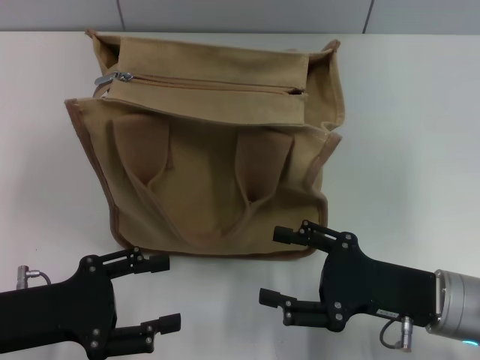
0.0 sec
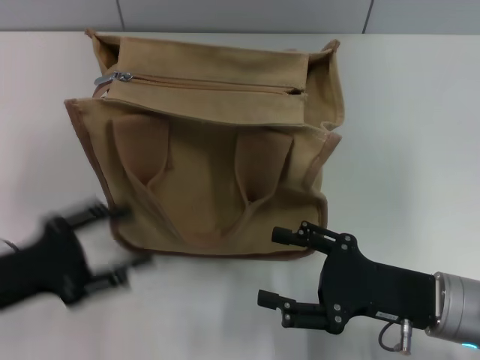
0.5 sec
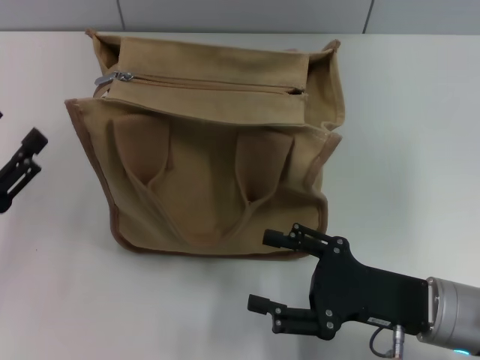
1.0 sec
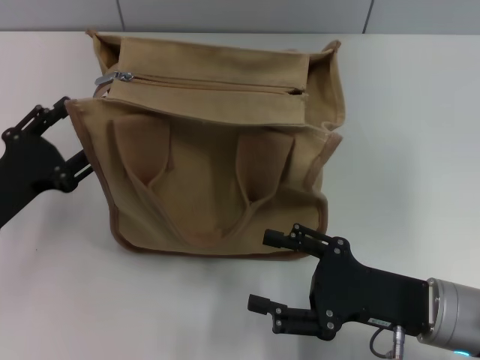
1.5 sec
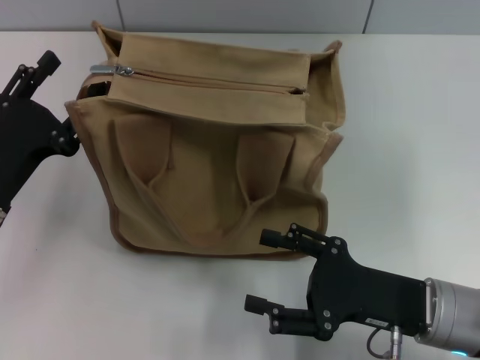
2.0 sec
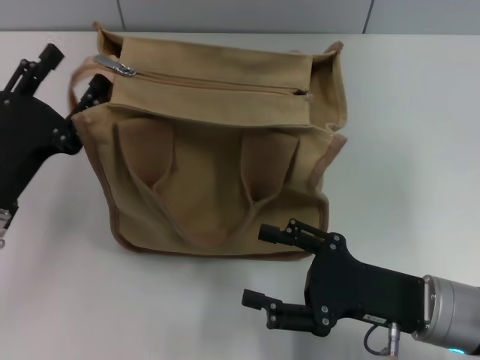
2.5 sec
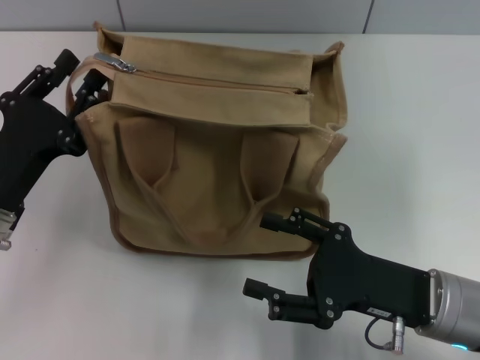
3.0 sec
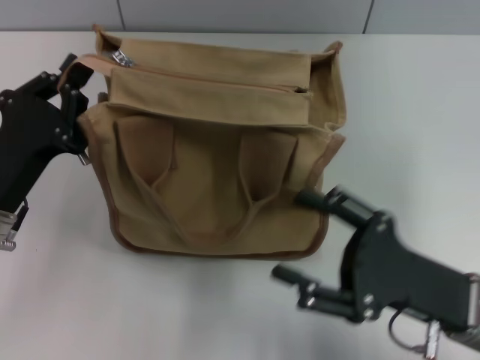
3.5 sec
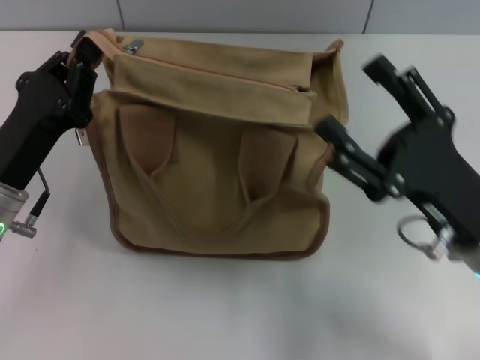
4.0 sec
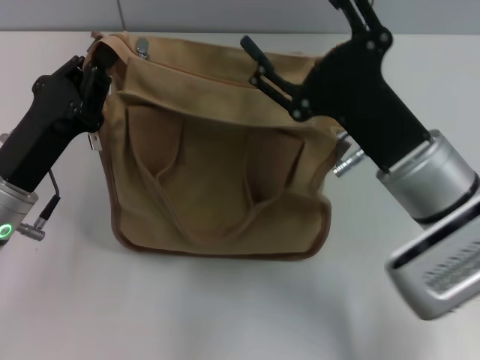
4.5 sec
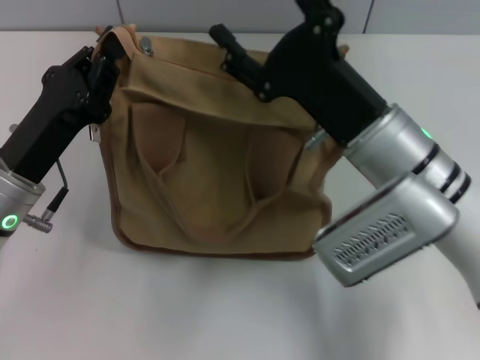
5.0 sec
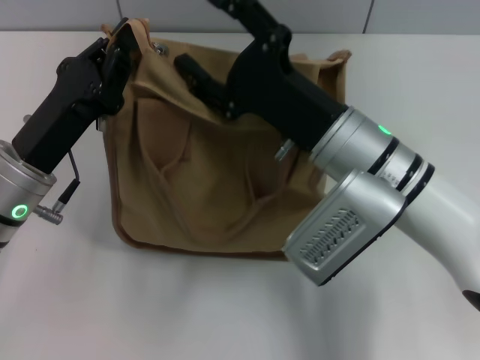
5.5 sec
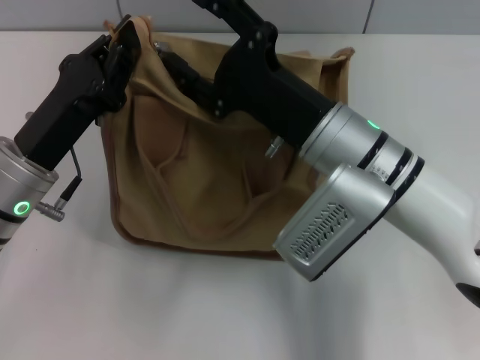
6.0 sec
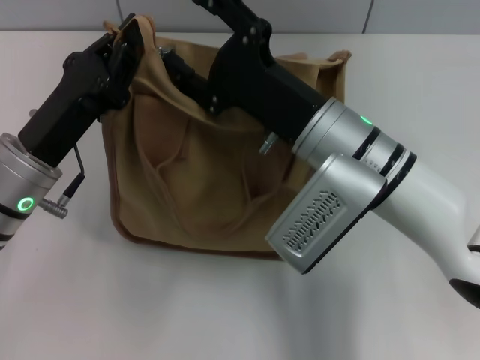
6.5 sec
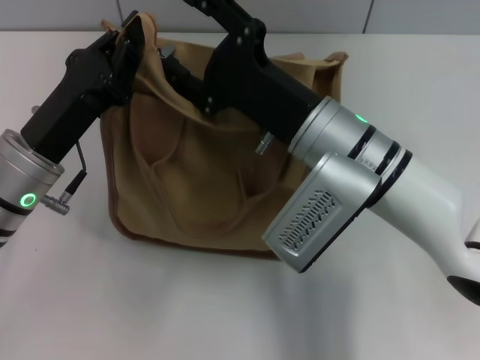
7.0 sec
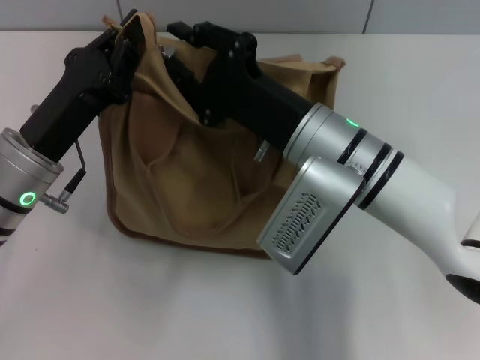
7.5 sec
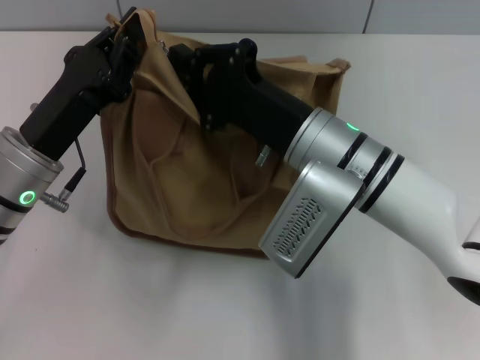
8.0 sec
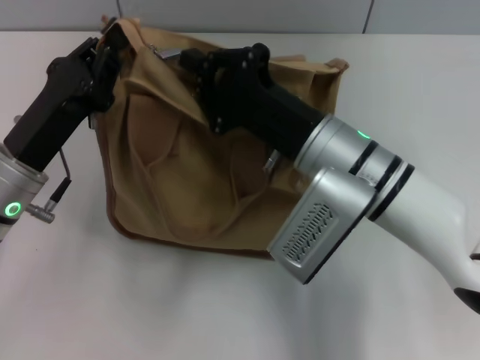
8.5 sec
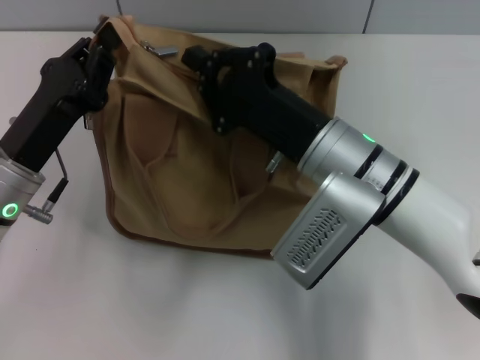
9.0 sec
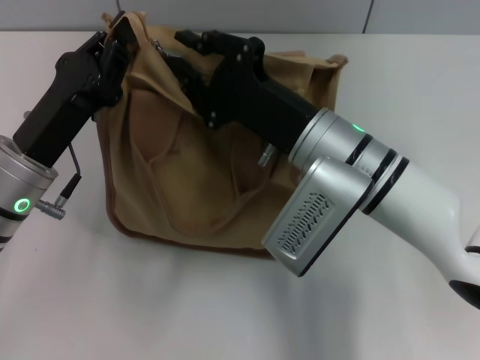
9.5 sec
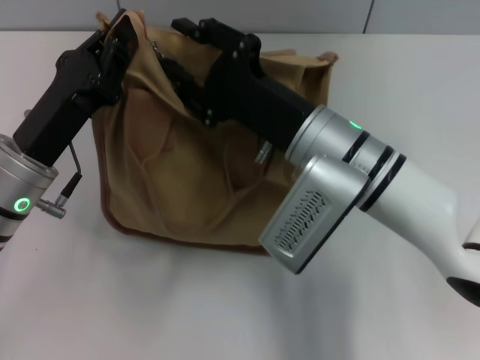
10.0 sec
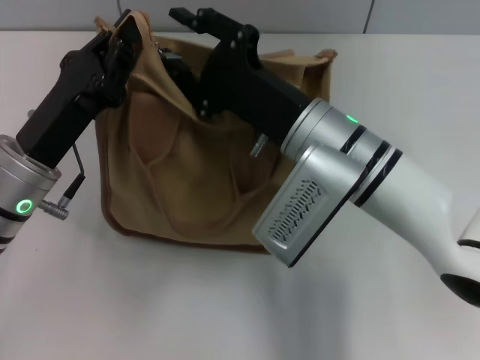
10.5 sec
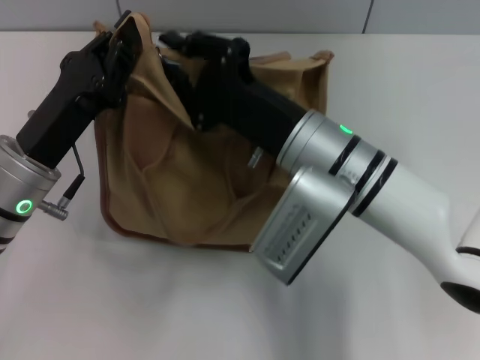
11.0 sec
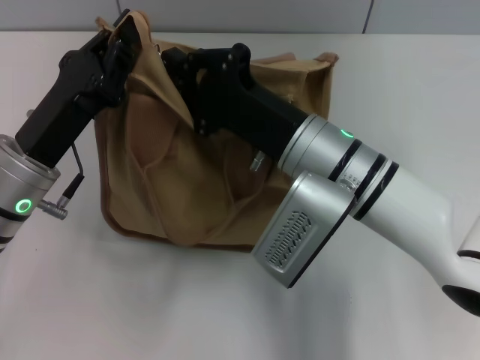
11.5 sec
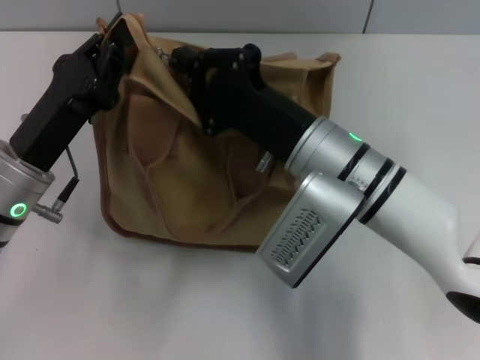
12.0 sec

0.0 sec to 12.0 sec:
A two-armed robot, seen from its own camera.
0.0 sec to 2.0 sec: The left gripper goes about 5 cm forward.
2.0 sec to 4.0 sec: The right gripper moves upward, approximately 5 cm. The left gripper closes up.
4.0 sec to 6.0 sec: The right gripper goes about 15 cm to the left and forward.
6.0 sec to 8.0 sec: The right gripper closes.
8.0 sec to 10.0 sec: The right gripper opens its fingers.
10.0 sec to 12.0 sec: The right gripper closes.

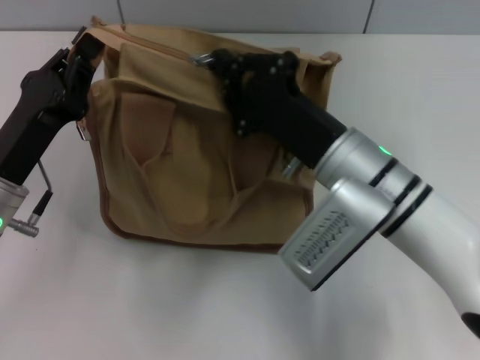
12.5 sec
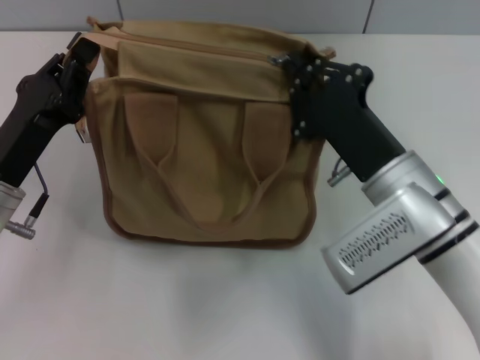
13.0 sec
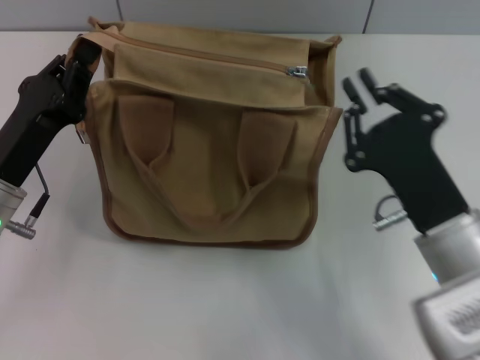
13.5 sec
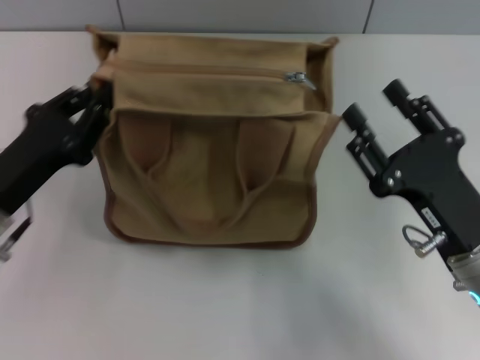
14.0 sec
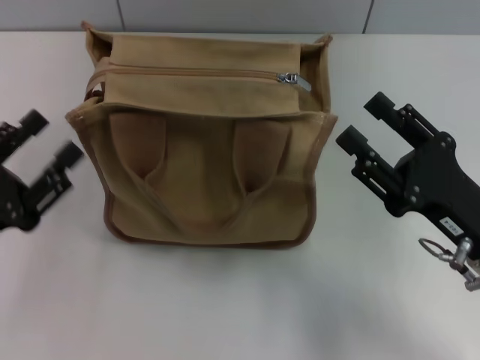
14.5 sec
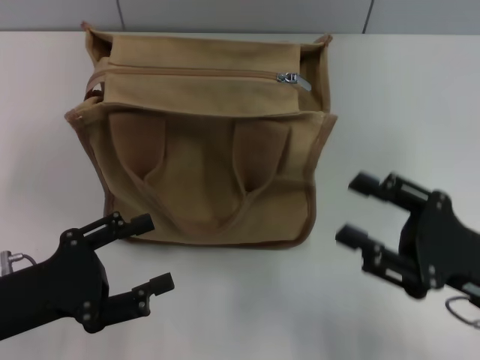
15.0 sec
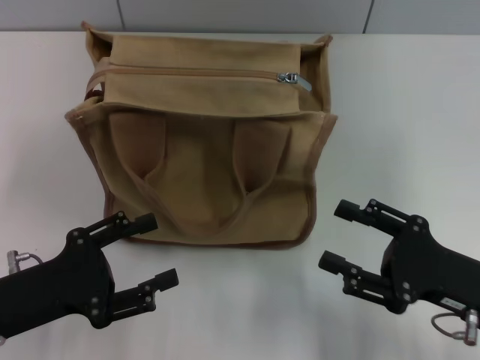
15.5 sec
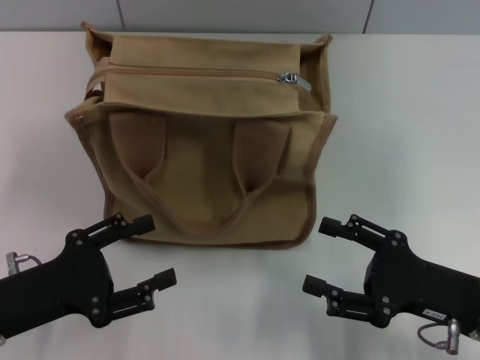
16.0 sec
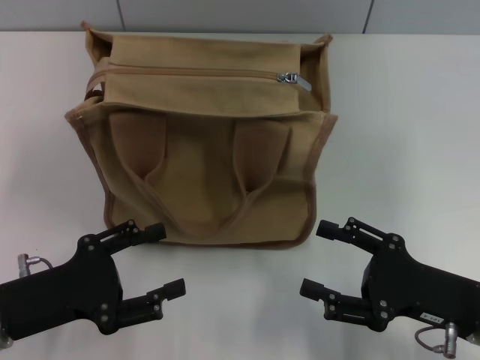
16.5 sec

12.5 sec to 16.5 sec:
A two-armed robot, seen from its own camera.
Step, 13.5 sec to 14.0 sec: Grab the zipper with your left hand.
12.5 sec to 14.5 sec: The right gripper shifts about 15 cm to the right and backward, and opens its fingers, while the left gripper moves backward and to the left, roughly 10 cm, and opens up.
14.5 sec to 16.5 sec: The left gripper opens.
